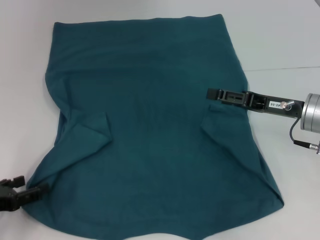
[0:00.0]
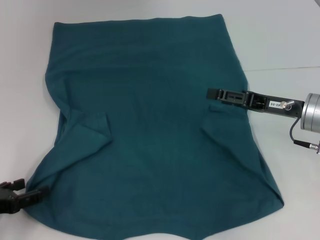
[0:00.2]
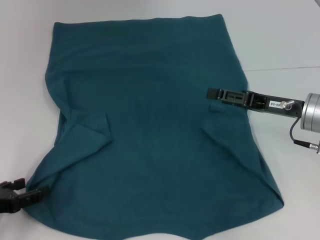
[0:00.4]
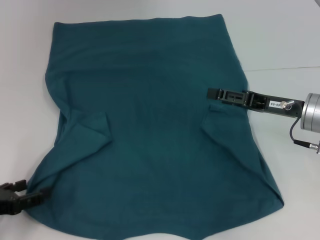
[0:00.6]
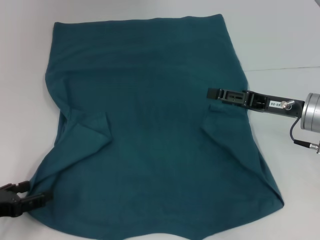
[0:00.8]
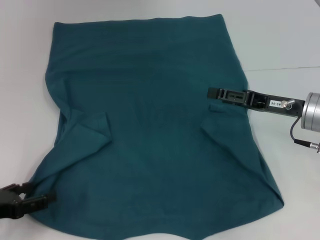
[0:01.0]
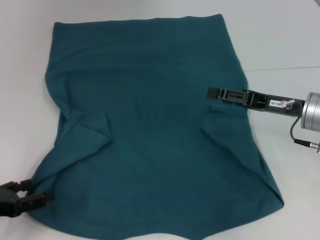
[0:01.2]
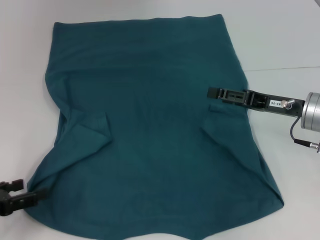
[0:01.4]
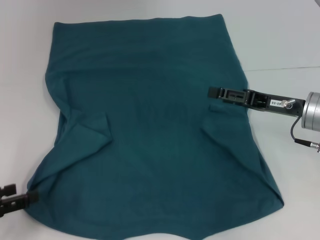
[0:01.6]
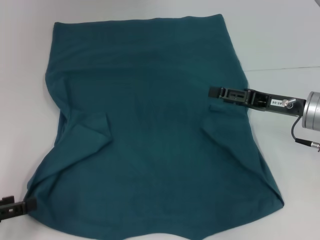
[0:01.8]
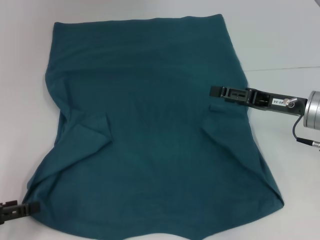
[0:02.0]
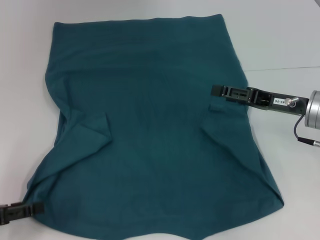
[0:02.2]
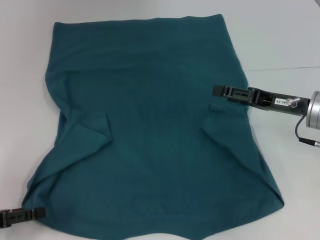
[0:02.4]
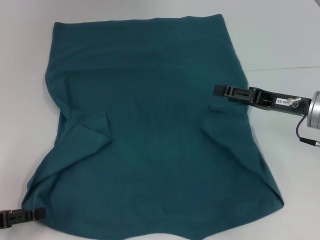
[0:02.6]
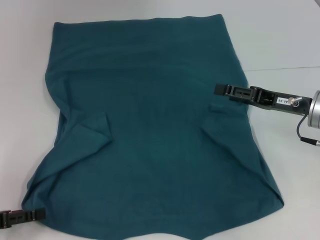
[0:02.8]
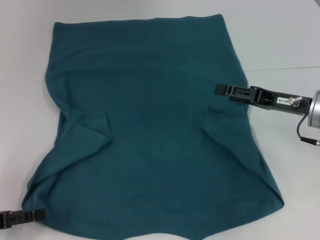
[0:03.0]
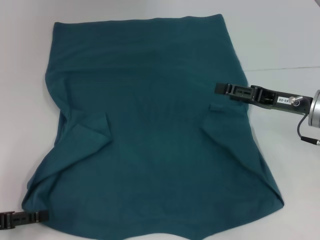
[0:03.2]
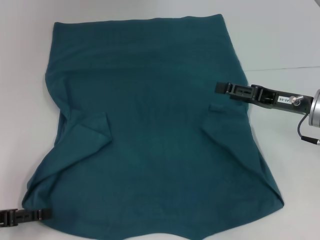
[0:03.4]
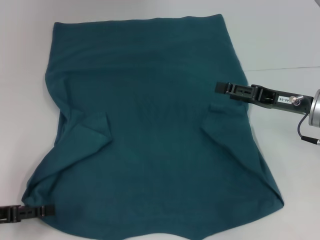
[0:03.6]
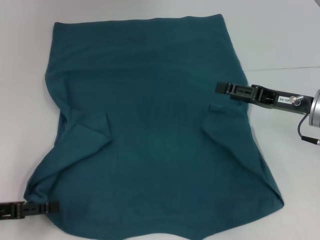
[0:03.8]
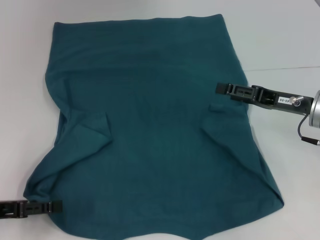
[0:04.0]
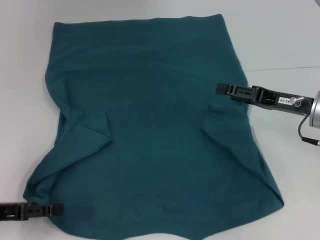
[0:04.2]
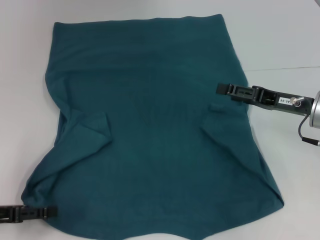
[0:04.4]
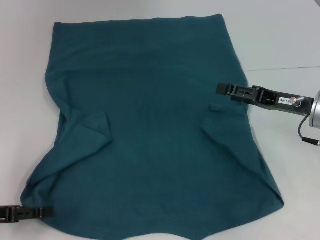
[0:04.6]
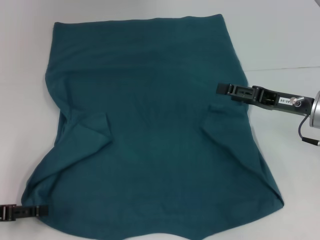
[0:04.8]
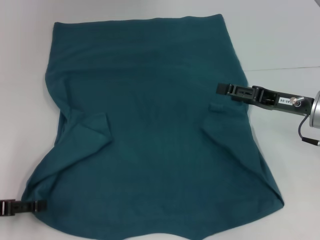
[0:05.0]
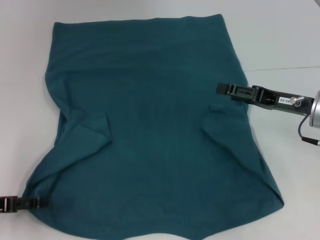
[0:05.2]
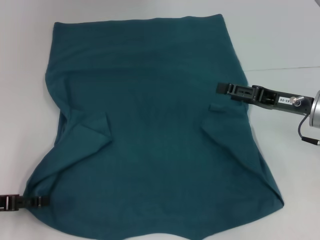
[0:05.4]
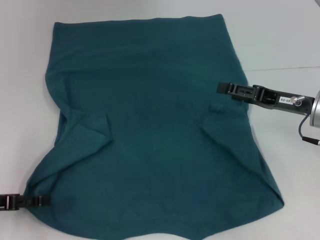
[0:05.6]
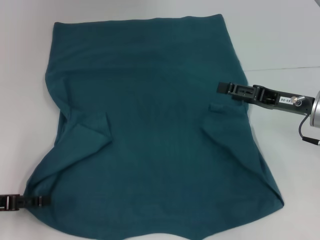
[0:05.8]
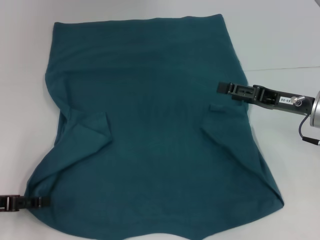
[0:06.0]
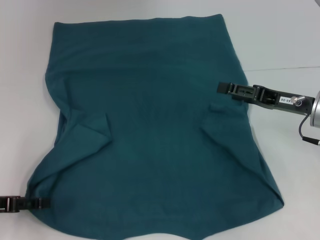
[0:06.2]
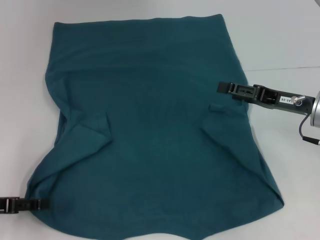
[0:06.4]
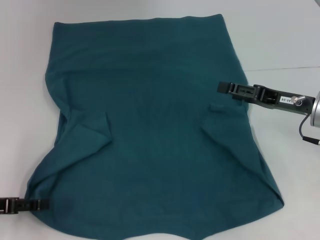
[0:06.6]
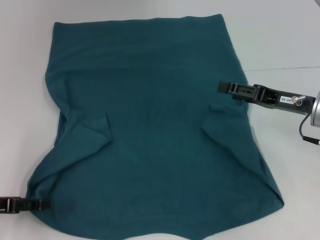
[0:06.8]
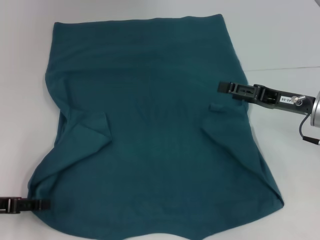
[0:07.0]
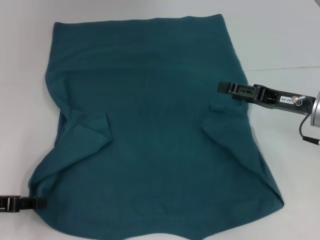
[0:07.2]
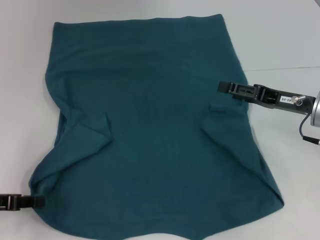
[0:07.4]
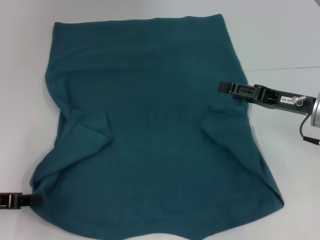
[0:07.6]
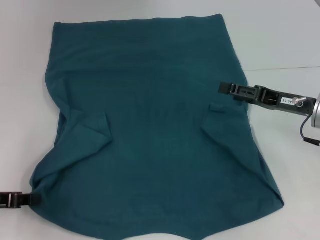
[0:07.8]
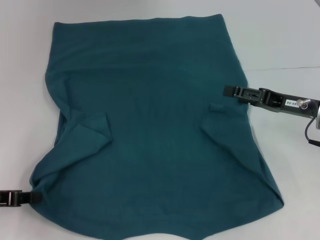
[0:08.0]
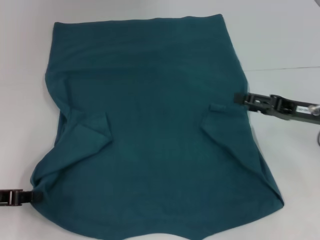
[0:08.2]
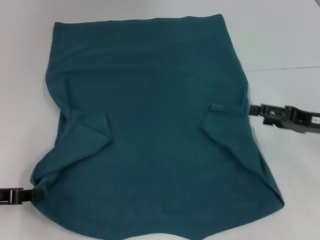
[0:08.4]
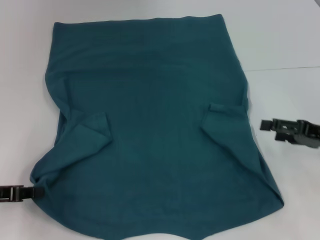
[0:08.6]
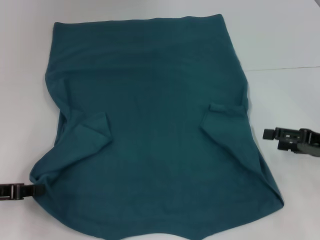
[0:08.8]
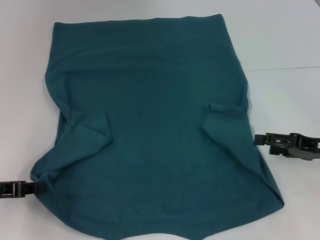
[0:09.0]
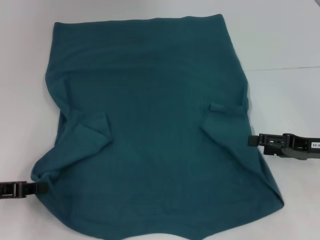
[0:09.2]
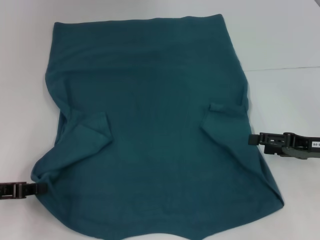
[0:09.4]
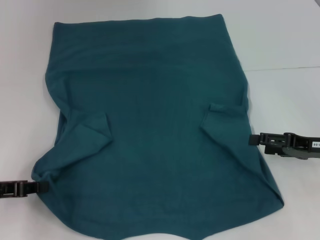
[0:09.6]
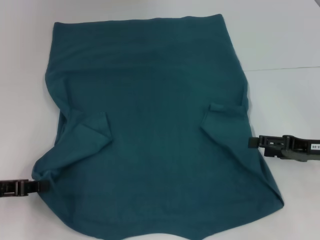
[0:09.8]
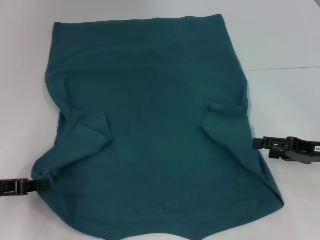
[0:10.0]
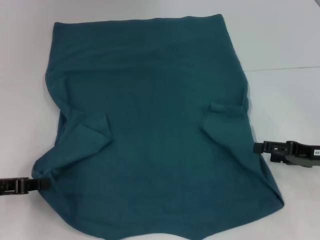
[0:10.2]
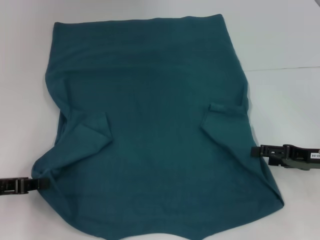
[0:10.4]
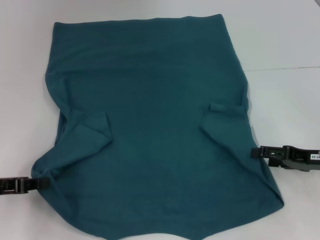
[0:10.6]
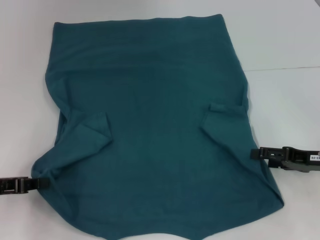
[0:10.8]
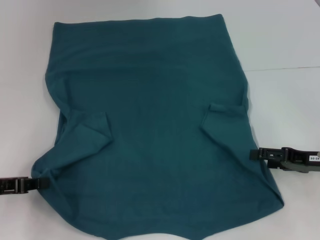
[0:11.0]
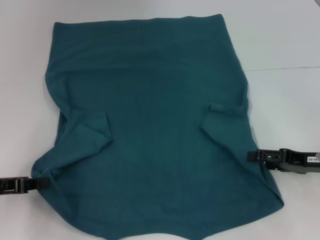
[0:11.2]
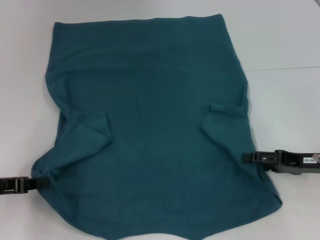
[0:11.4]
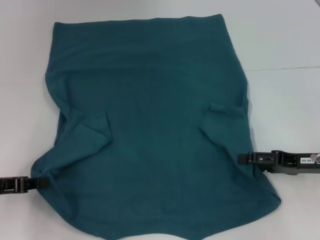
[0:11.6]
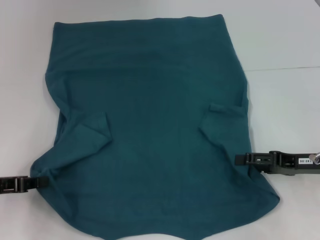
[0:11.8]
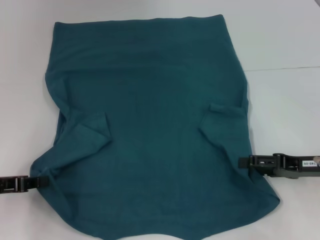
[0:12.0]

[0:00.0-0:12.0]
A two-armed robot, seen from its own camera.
Step, 0:00.0 to 0:07.6: Grab the bottom left corner with your left hand.
0:00.0 to 0:01.6: The grippers make only small movements.
0:01.6 to 0:06.0: The grippers move only a little.
0:06.0 to 0:07.6: The left gripper closes up.
0:07.6 to 0:09.0: The right gripper is displaced to the right by roughly 5 cm.
0:09.0 to 0:12.0: The grippers stay close to where they were, moving slightly.

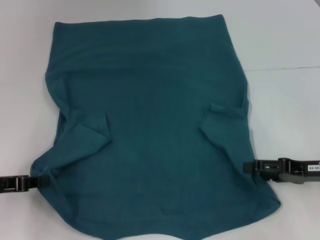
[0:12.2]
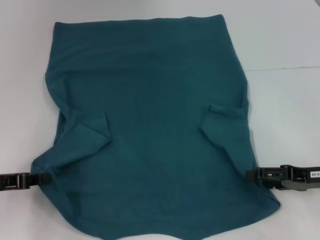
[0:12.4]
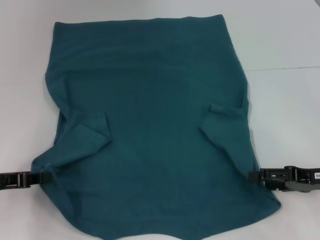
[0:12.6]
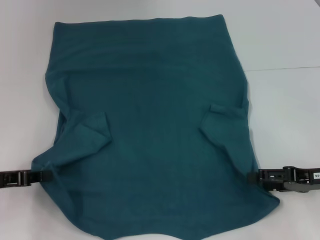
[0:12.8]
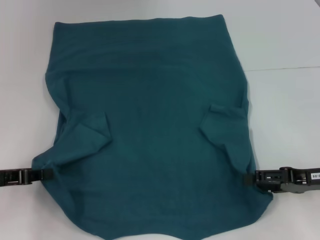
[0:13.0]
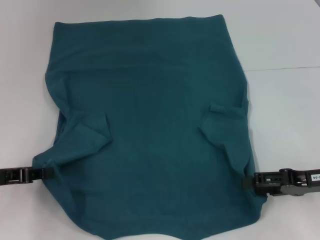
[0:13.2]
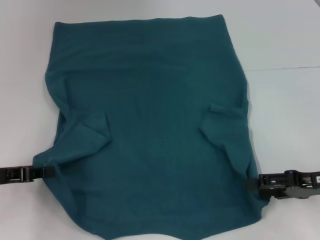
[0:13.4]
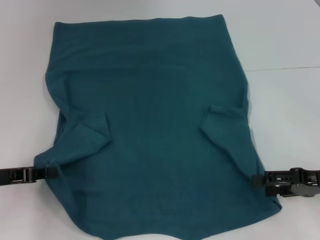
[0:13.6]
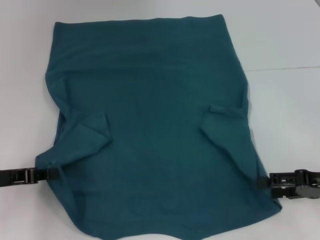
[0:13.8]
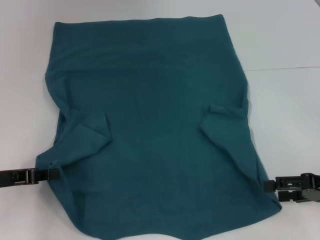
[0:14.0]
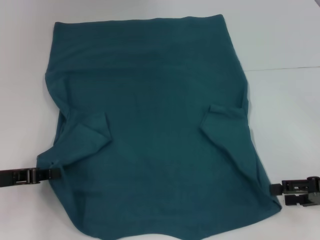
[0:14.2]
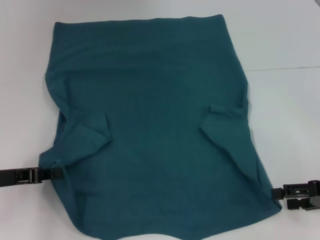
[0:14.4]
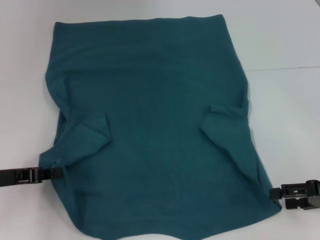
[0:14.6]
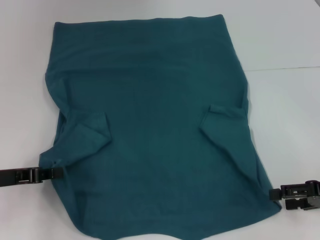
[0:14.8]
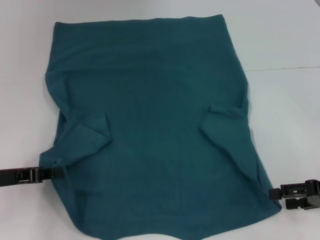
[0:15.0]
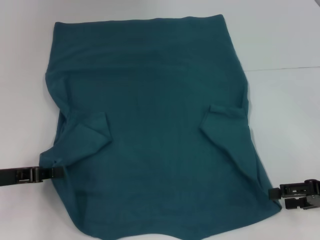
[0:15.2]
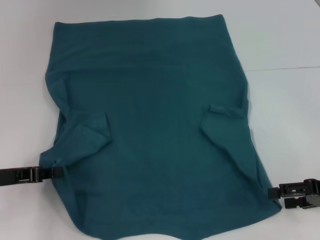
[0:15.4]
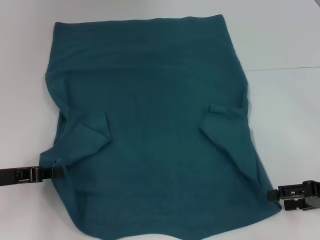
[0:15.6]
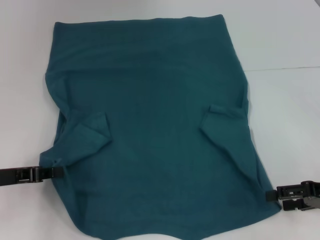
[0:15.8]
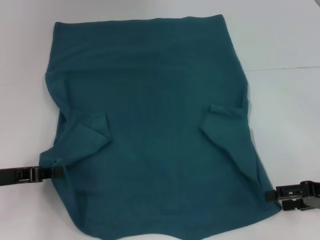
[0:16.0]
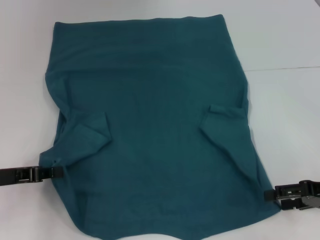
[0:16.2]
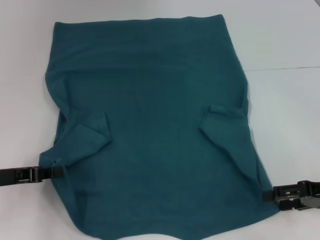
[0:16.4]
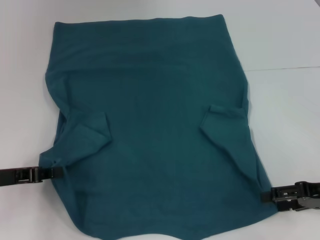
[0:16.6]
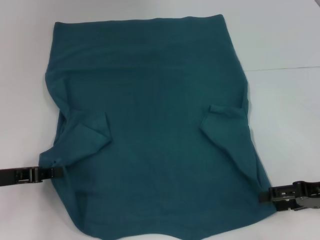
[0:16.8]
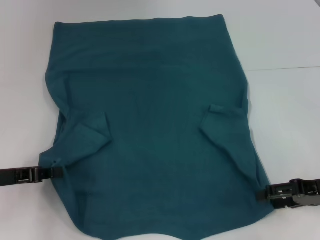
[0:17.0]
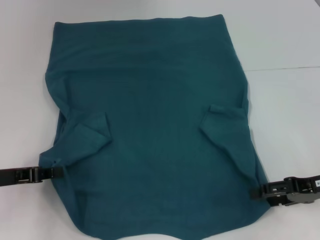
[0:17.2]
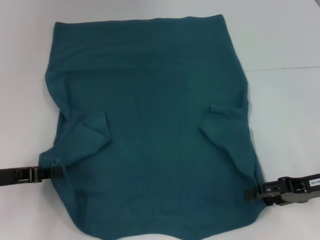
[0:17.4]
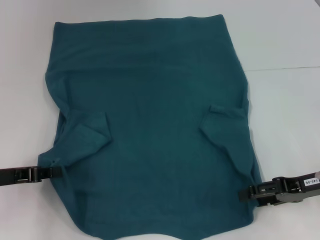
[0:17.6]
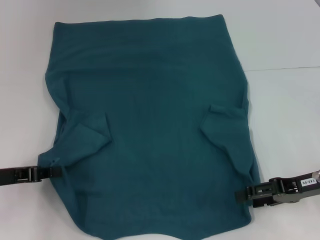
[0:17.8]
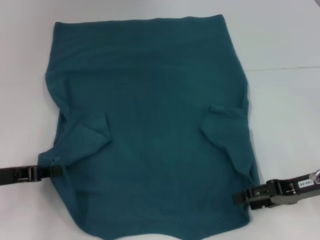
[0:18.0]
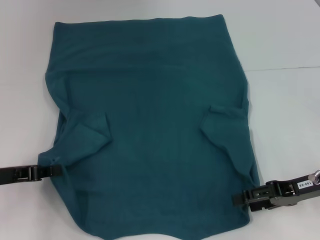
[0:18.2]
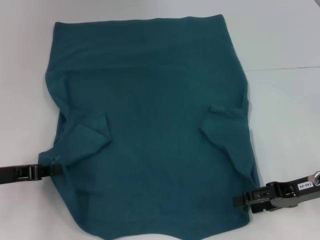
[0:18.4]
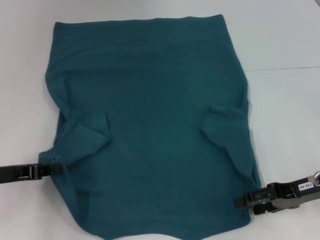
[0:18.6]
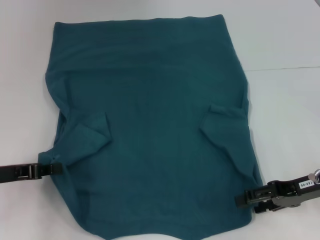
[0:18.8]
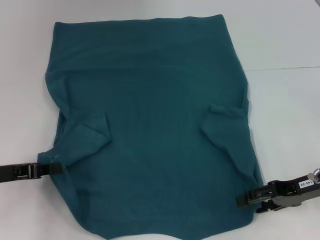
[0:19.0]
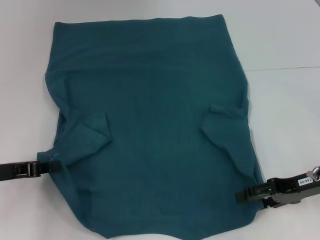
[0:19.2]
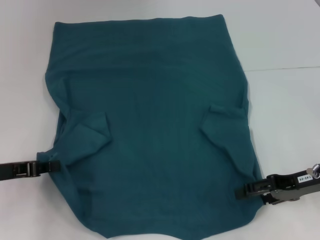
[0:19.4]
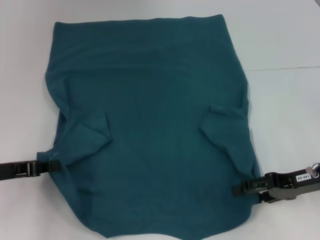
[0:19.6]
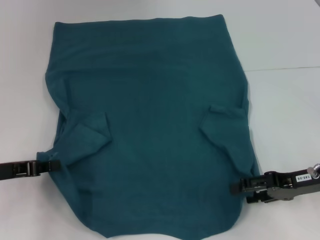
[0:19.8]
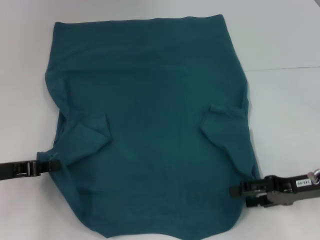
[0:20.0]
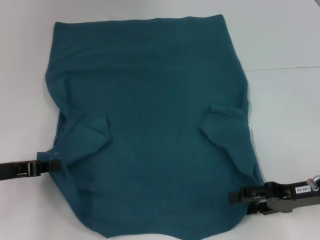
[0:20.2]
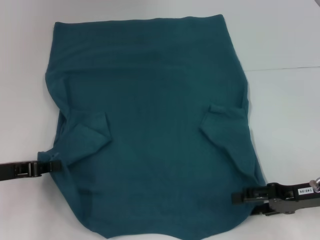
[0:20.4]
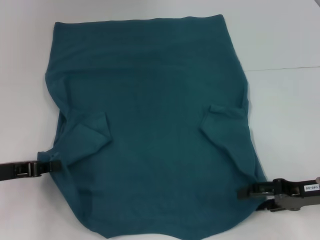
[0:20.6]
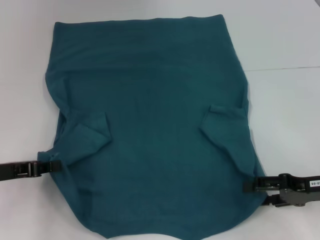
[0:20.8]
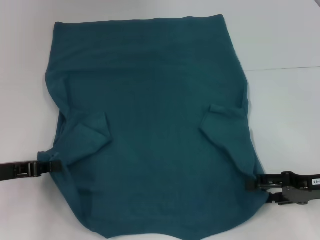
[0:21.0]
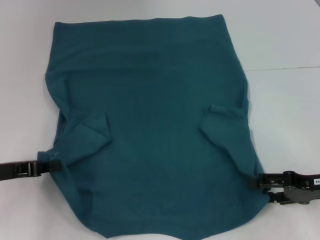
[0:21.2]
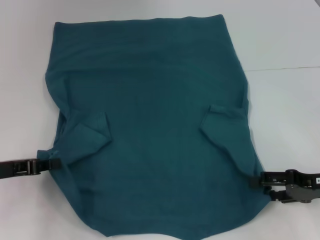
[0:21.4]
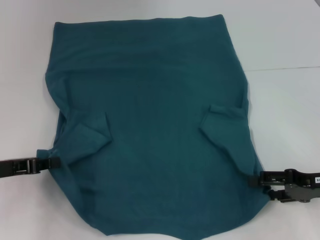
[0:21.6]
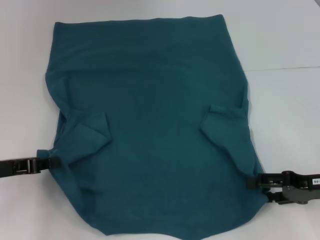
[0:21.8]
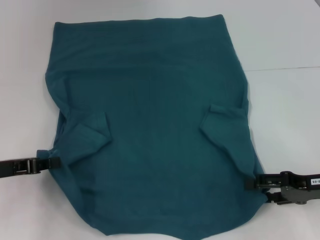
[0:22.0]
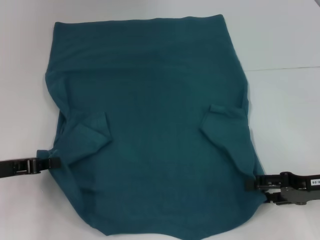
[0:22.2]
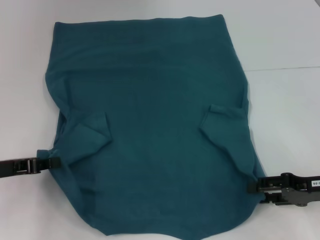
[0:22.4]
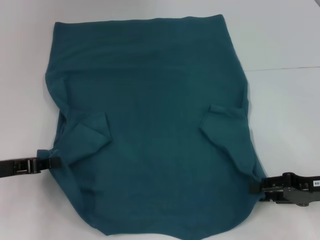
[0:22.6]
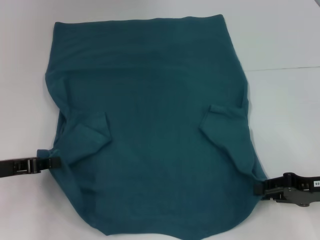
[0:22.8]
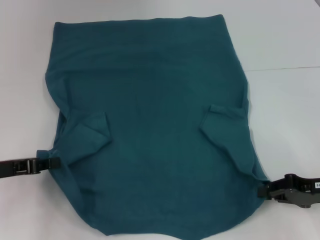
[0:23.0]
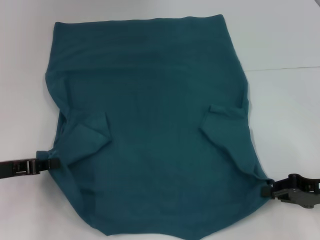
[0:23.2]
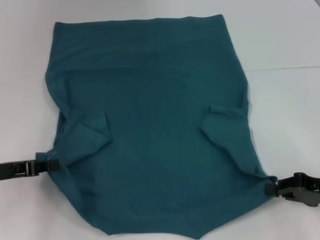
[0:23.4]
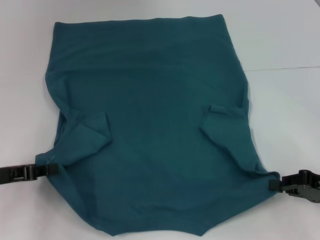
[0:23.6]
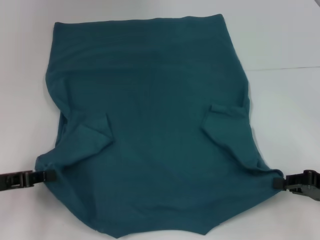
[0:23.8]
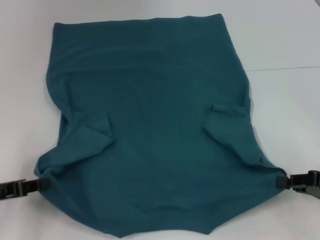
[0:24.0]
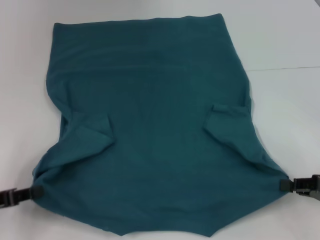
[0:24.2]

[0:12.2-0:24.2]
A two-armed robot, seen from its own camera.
Step, 0:12.2 to 0:23.2: Grab the bottom right corner with your right hand.
0:12.2 to 0:15.2: There are only small adjustments of the grippers.
0:15.2 to 0:16.6: The two grippers keep their place.
0:16.6 to 0:21.2: There are only small adjustments of the grippers.
0:21.2 to 0:22.6: Both grippers stay about where they are.
0:22.6 to 0:24.2: The right gripper closes its fingers; the left gripper is displaced backward by approximately 5 cm.
